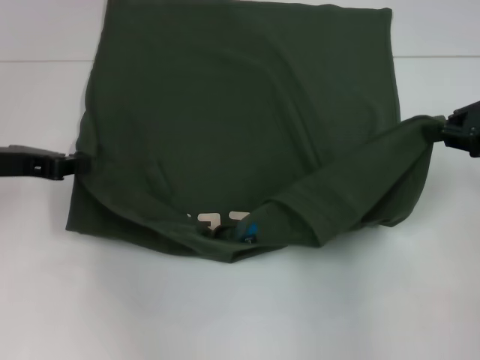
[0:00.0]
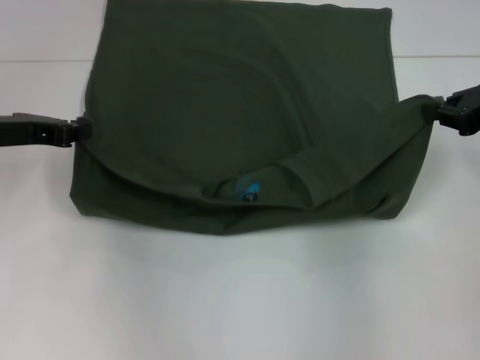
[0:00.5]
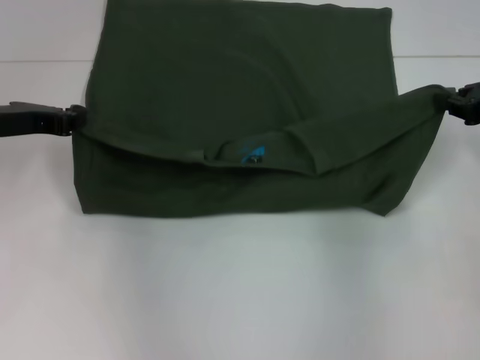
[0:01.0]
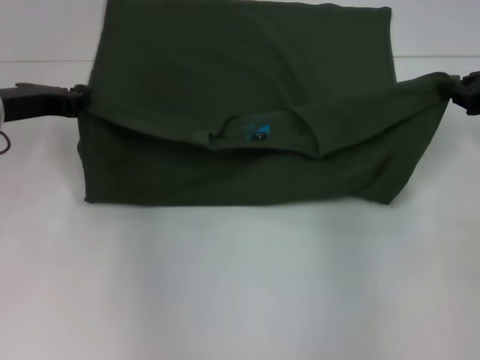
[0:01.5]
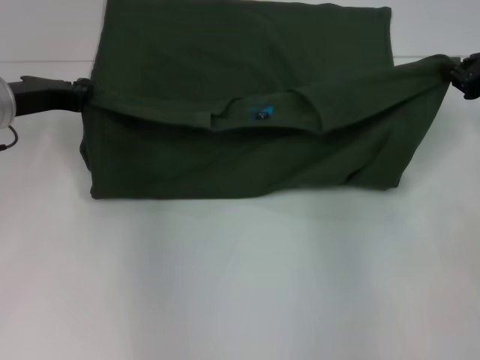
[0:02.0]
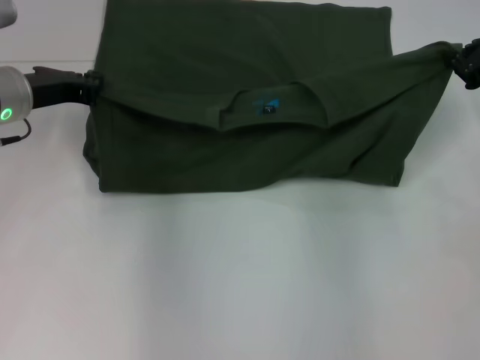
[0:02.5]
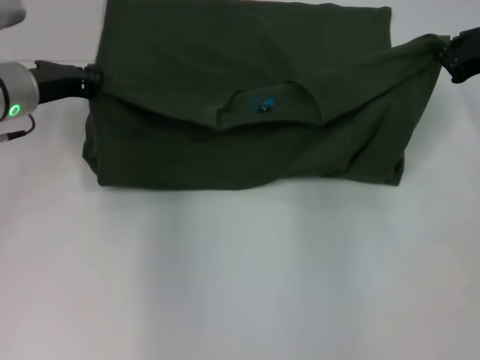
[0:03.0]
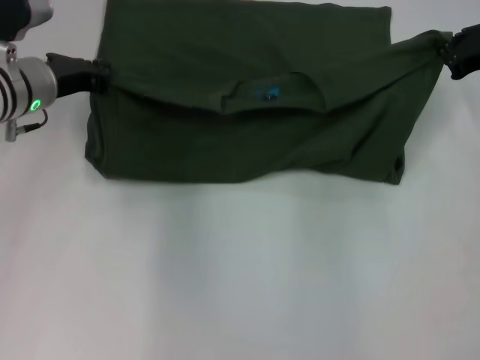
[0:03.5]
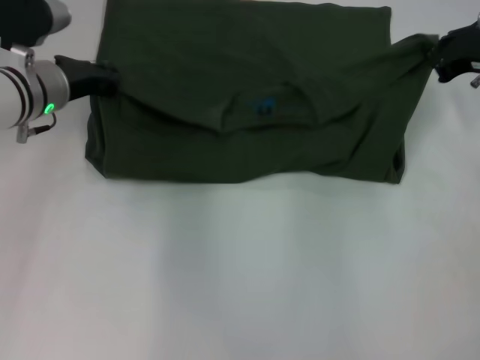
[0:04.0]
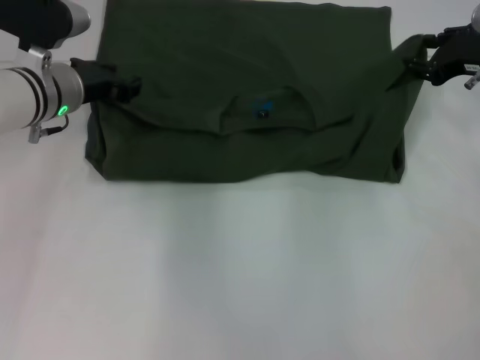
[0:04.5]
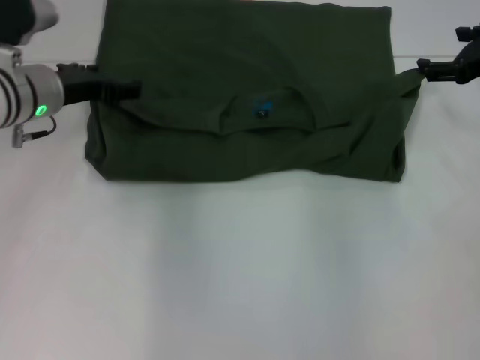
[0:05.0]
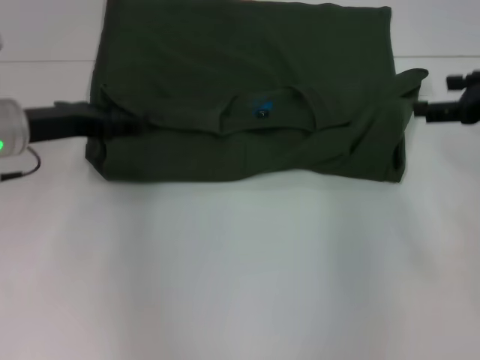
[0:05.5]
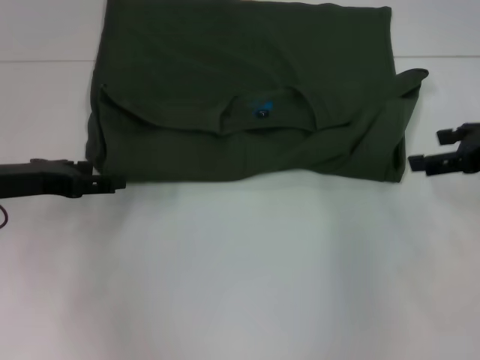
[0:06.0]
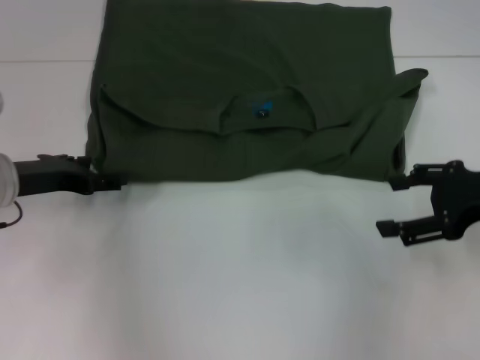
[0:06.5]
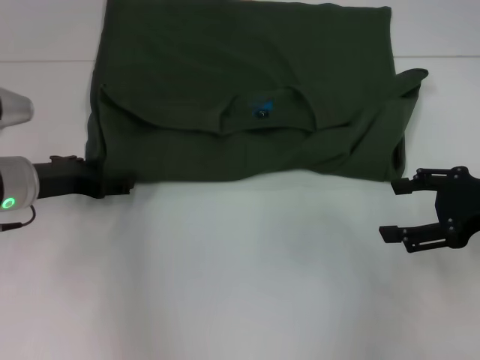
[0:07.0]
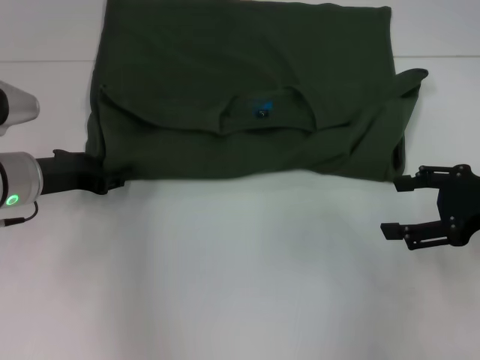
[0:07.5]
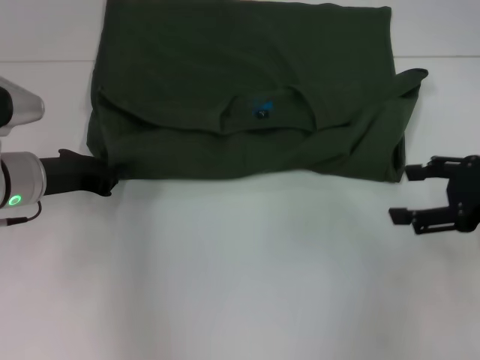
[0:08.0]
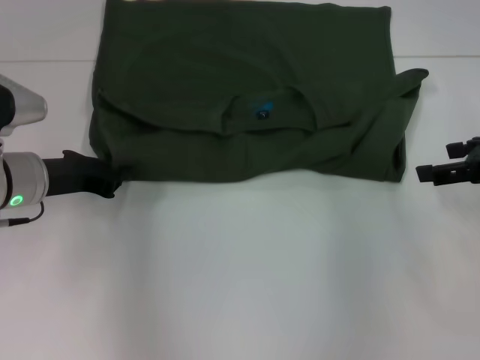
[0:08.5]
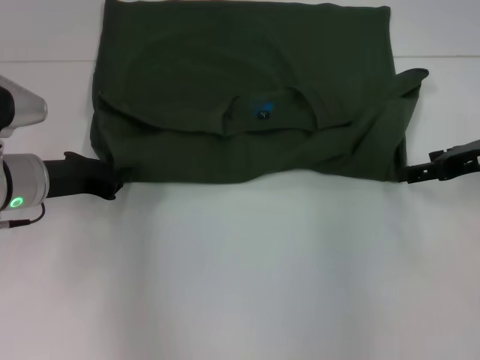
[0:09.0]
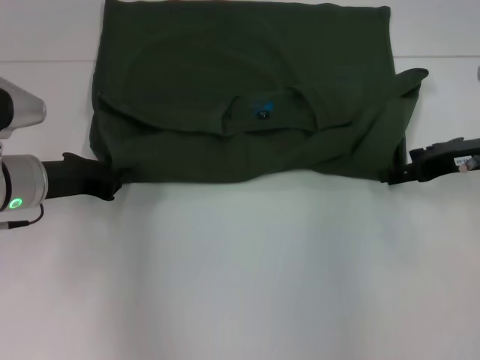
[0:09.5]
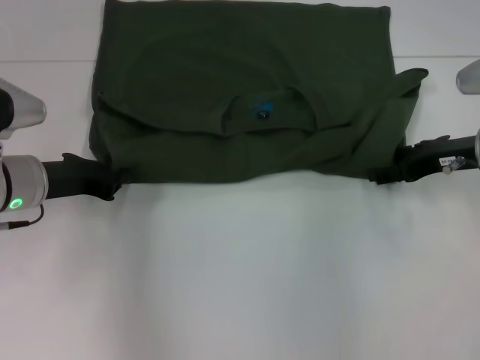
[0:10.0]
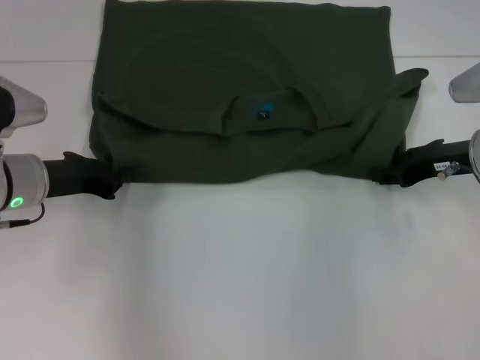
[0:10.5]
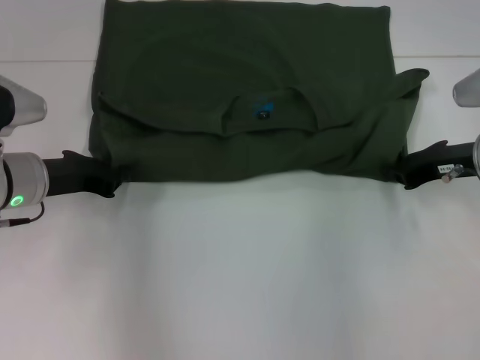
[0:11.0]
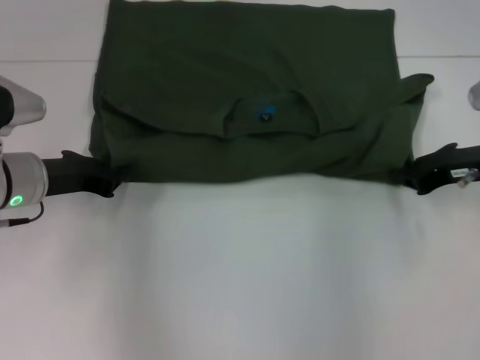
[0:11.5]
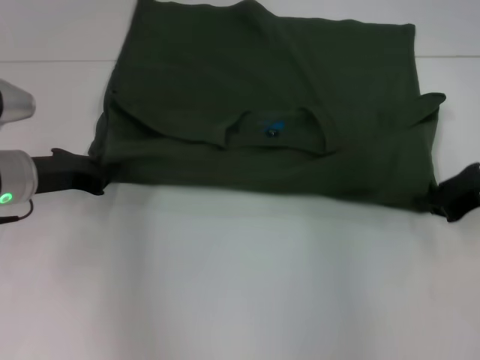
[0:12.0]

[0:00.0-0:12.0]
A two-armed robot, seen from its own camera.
Step, 0.0 to 4.5 s: Fold the clothes with your left hand.
Step, 0.0 to 4.5 s: Fold the clothes with your right hand.
0.0 to 2.0 s: Both grippers move forward, approximately 5 cm.
2.0 to 4.0 s: The left gripper travels to the right by approximately 5 cm.
4.0 to 6.0 s: The right gripper shifts roughly 10 cm backward, and opens its fingers, while the left gripper moves backward and to the left, roughly 15 cm, and opens.
6.0 to 8.0 s: The right gripper ends up roughly 5 cm from where it was. The left gripper shifts by about 5 cm, and closes up.
8.0 to 10.0 s: The right gripper is displaced forward by roughly 10 cm.
10.0 to 12.0 s: The right gripper closes.

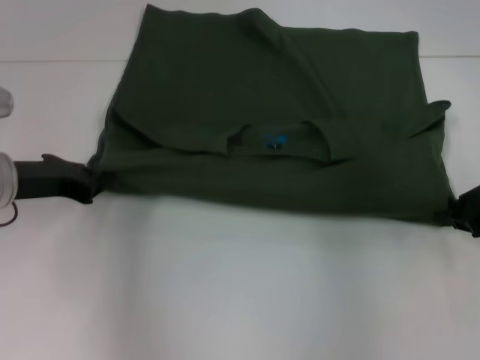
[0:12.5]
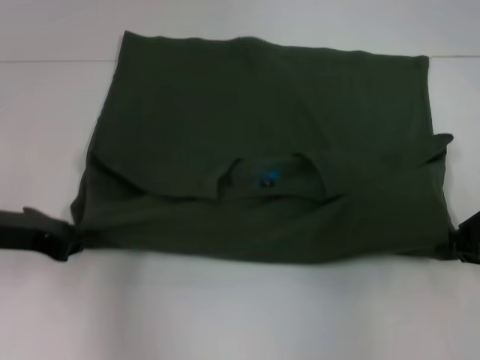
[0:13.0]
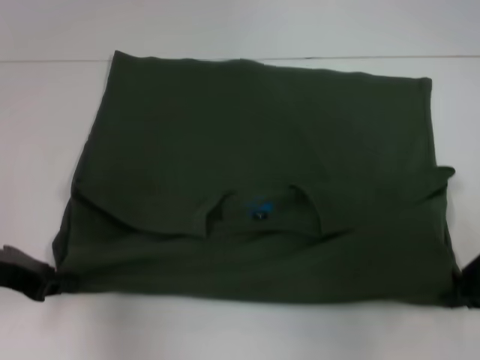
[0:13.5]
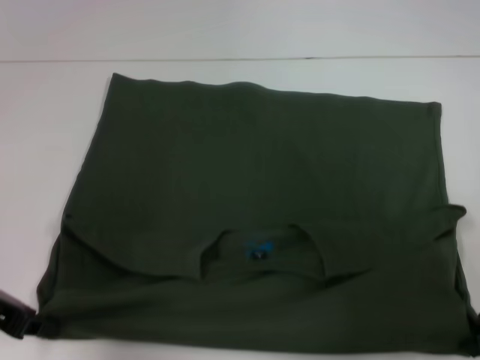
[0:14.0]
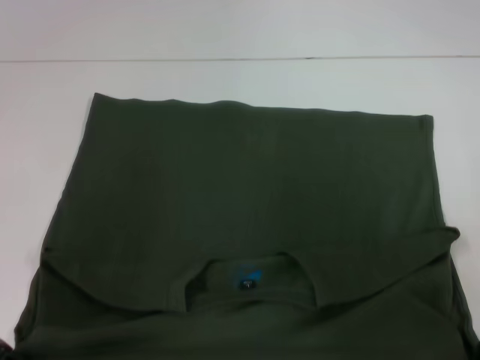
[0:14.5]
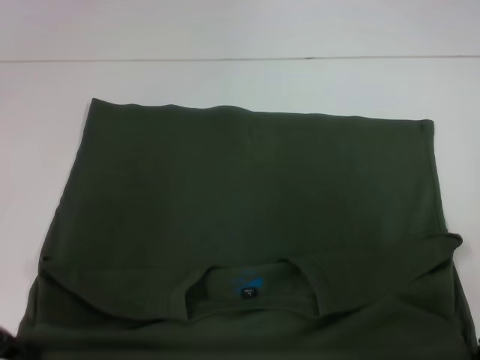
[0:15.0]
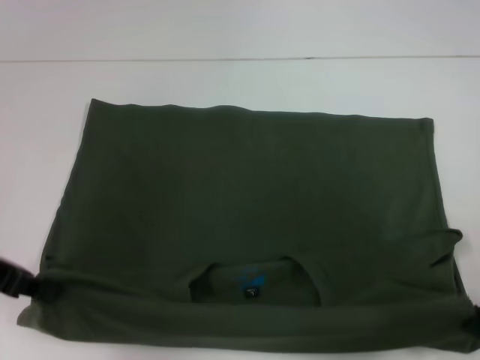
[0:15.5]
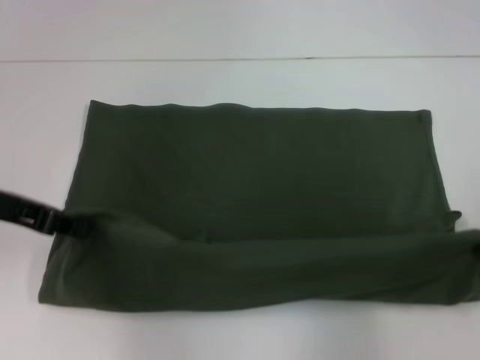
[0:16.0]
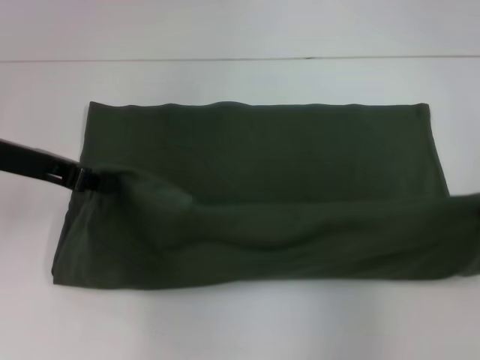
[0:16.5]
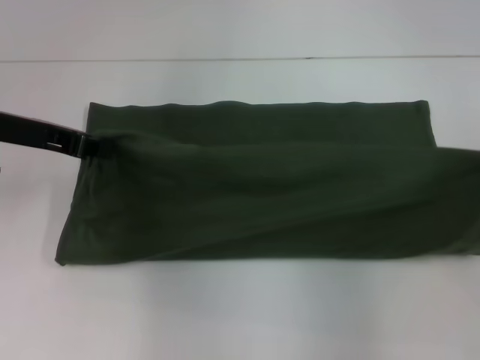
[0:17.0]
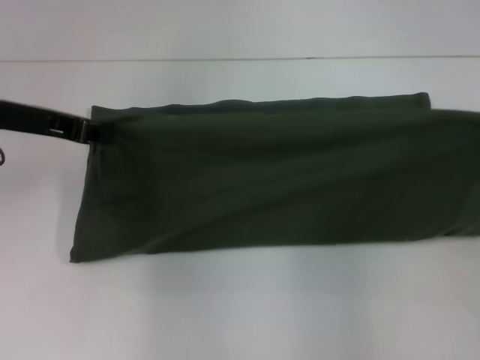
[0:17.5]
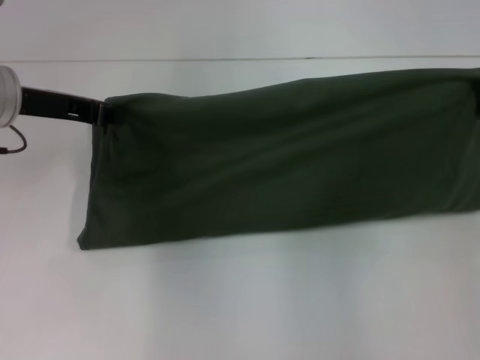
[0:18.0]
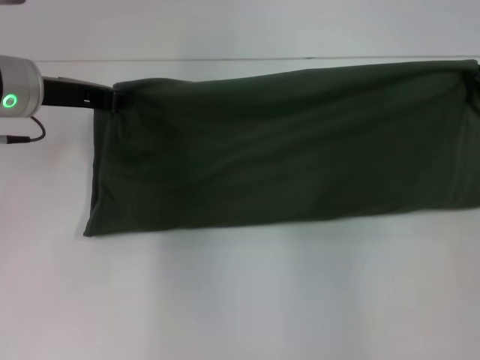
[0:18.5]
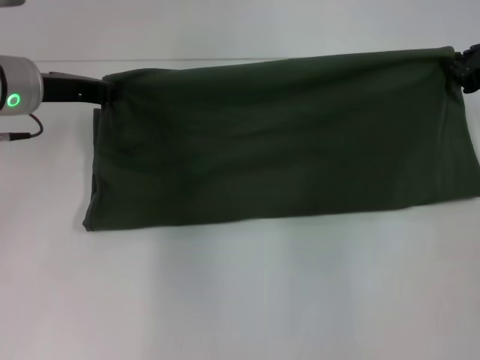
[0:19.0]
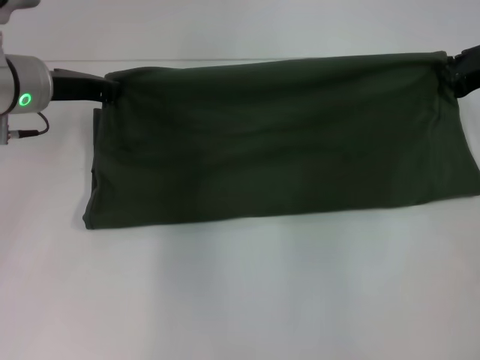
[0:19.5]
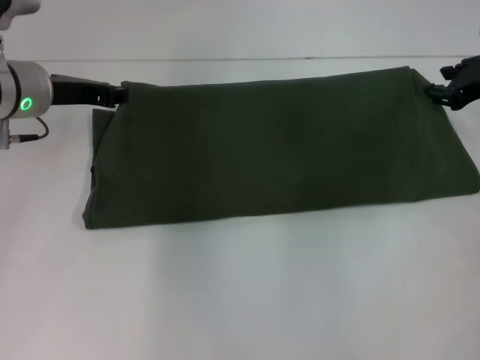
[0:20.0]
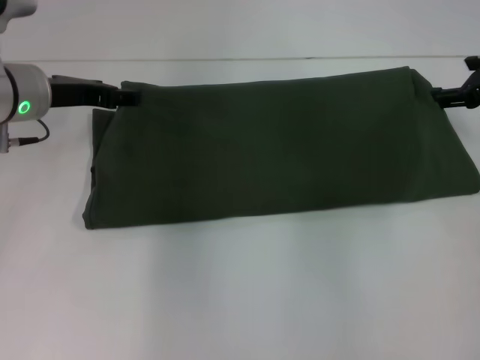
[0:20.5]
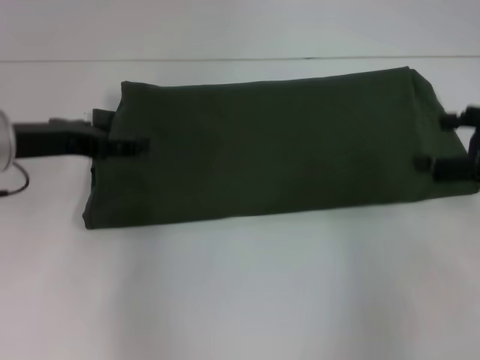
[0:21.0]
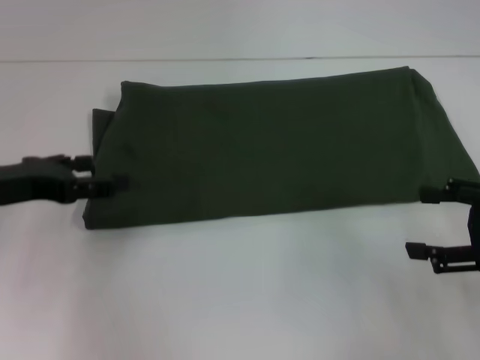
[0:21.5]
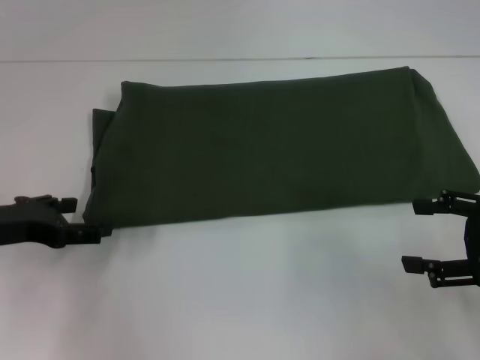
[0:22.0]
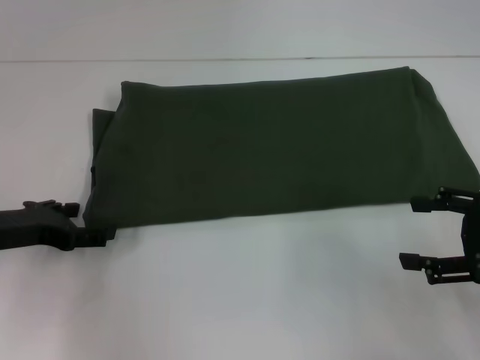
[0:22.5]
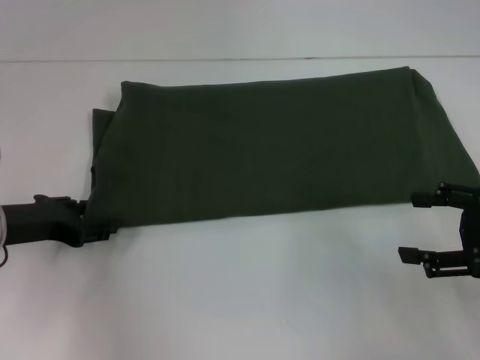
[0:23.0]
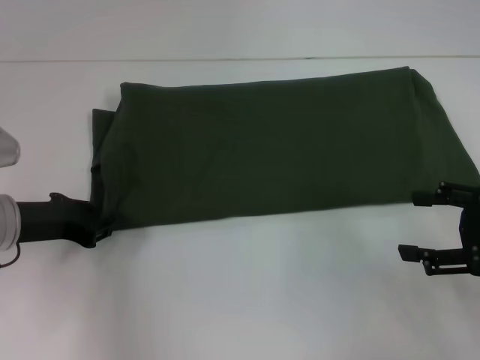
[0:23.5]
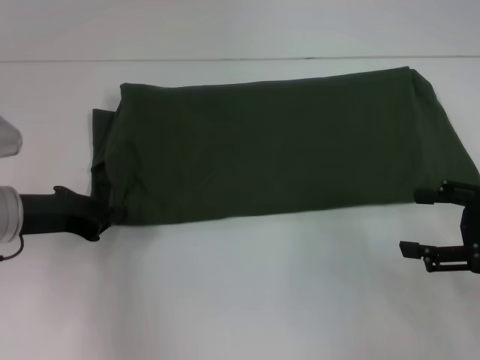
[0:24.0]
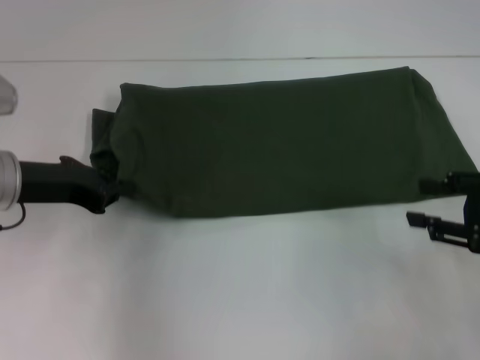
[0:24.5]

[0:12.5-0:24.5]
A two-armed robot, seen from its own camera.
Step, 12.5 to 14.5 s: Pull the clothes with your left hand.
Step, 12.5 to 14.5 s: Pull the clothes with your right hand.
Step, 15.0 to 20.0 s: Fold the clothes with your right hand.
12.5 to 14.5 s: The grippers both shift backward by about 10 cm.
14.5 to 16.5 s: The left gripper goes approximately 10 cm forward; the right gripper moves upward and to the right, approximately 10 cm.
16.5 to 18.5 s: The right gripper is displaced forward by approximately 10 cm; the left gripper travels forward by roughly 5 cm.
18.5 to 20.5 s: The left gripper opens up. Meanwhile the right gripper shifts by approximately 5 cm, and opens its fingers.
20.5 to 22.5 s: The right gripper is displaced backward by approximately 15 cm. Meanwhile the left gripper heads backward, downward and to the left, covering about 15 cm, and opens.
22.5 to 24.5 s: The left gripper goes roughly 5 cm upward, and closes up.

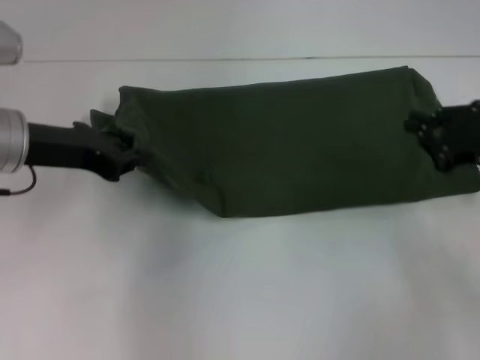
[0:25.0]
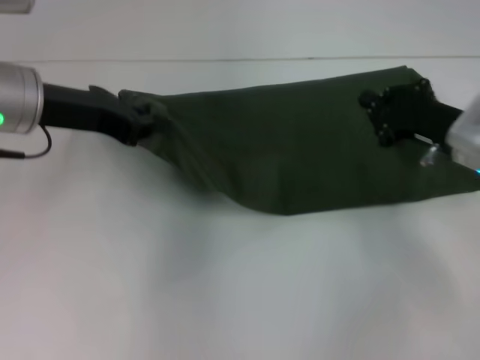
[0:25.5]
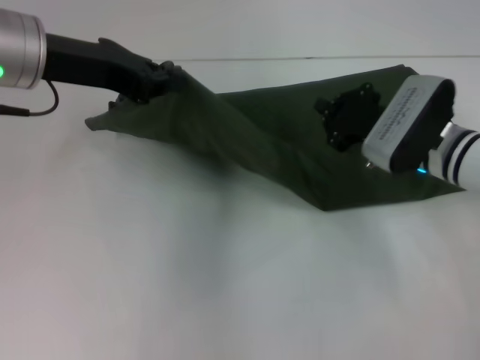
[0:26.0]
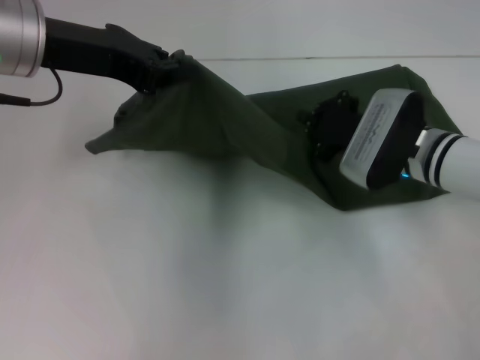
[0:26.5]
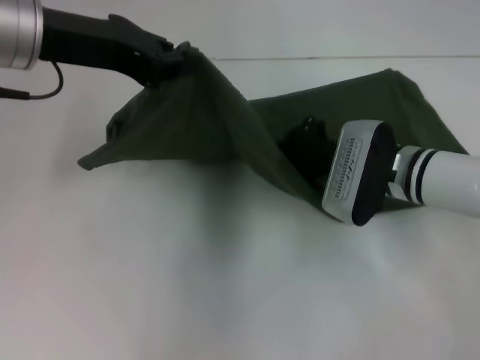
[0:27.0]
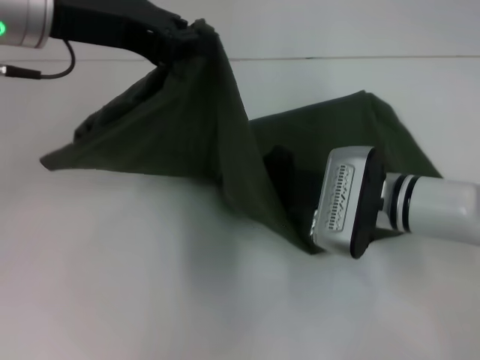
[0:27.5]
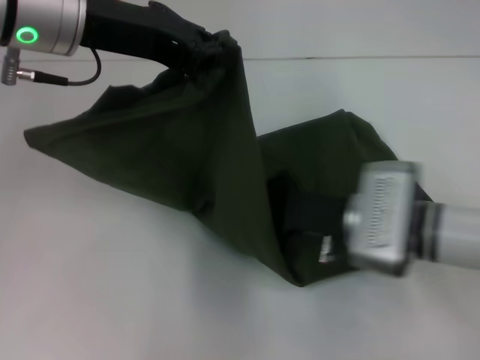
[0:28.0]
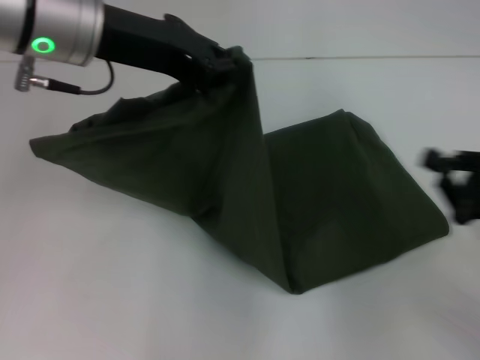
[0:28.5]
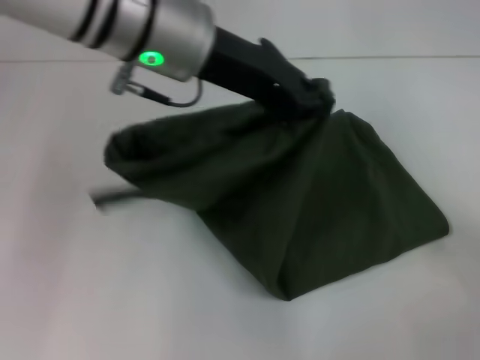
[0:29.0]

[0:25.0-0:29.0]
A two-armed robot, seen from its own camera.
25.0 to 27.0 s: The left gripper shifts approximately 10 cm upward, while the right gripper goes some 15 cm to the left.
27.0 to 29.0 s: The left gripper travels to the right by roughly 10 cm; the right gripper moves to the right and backward, about 30 cm.
